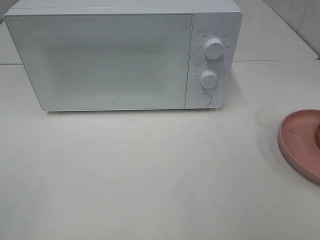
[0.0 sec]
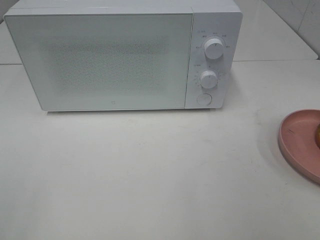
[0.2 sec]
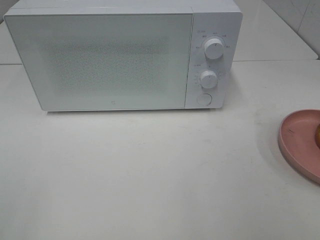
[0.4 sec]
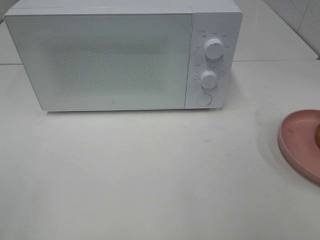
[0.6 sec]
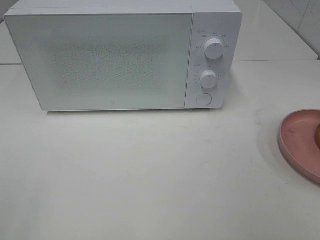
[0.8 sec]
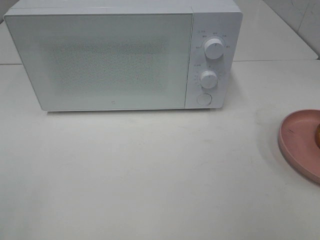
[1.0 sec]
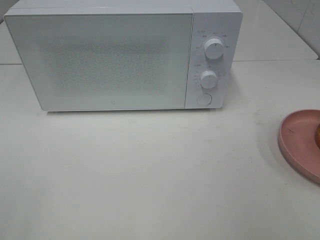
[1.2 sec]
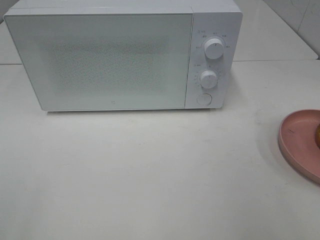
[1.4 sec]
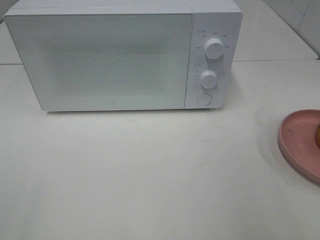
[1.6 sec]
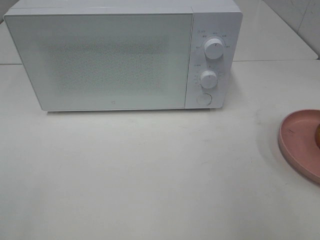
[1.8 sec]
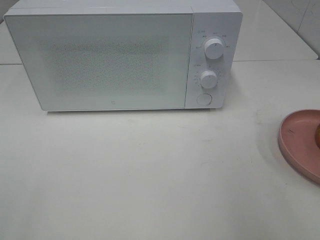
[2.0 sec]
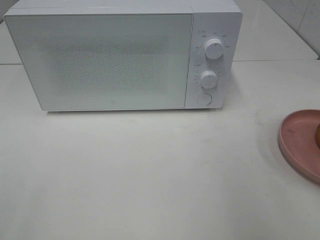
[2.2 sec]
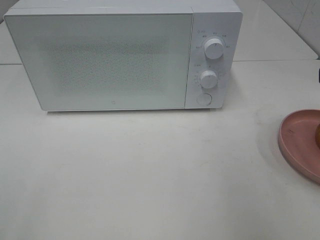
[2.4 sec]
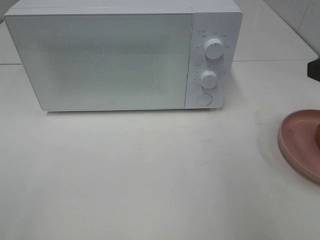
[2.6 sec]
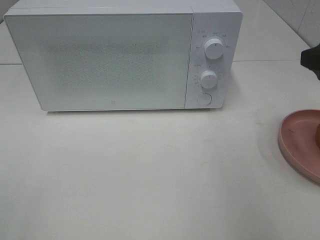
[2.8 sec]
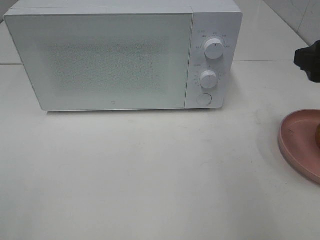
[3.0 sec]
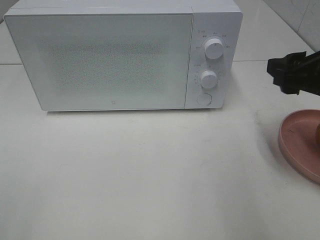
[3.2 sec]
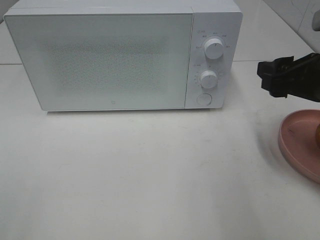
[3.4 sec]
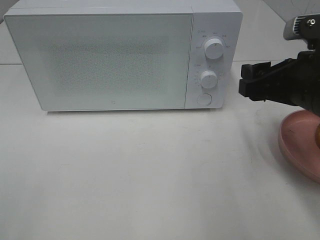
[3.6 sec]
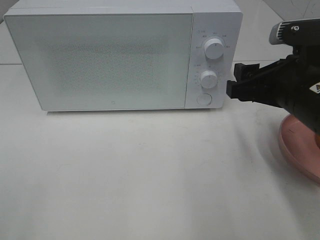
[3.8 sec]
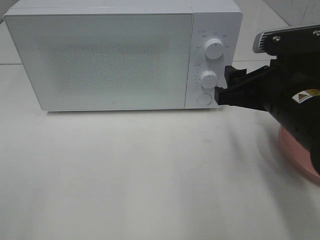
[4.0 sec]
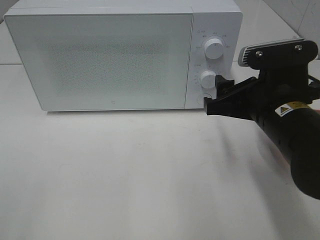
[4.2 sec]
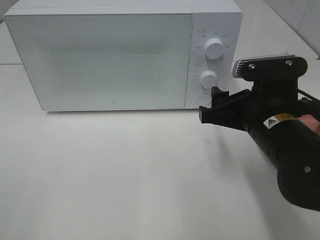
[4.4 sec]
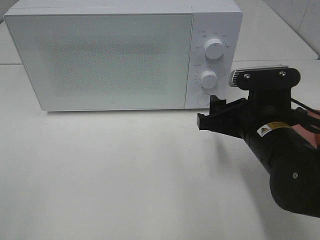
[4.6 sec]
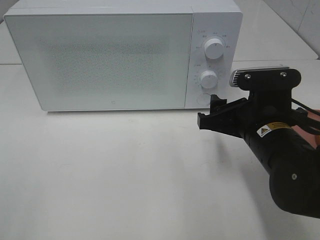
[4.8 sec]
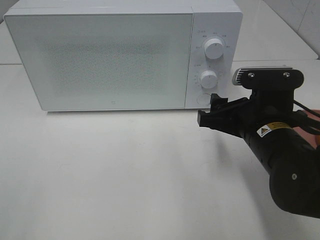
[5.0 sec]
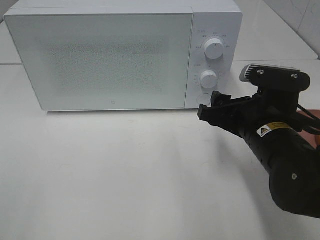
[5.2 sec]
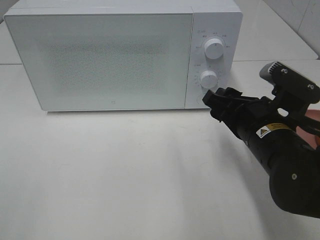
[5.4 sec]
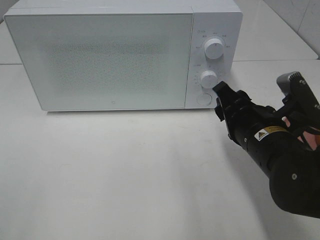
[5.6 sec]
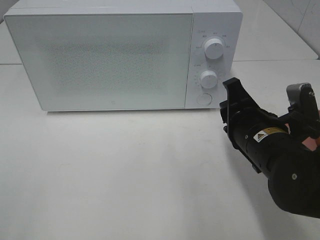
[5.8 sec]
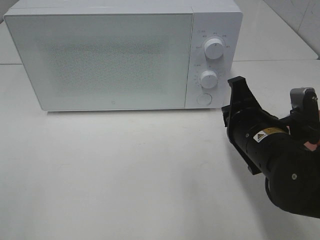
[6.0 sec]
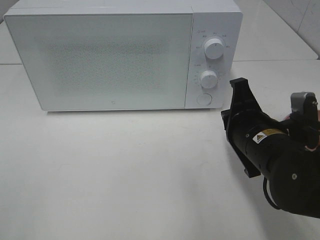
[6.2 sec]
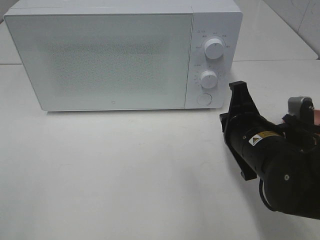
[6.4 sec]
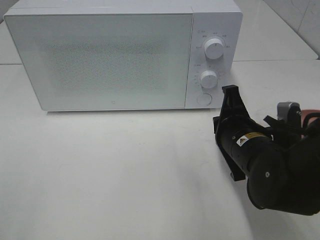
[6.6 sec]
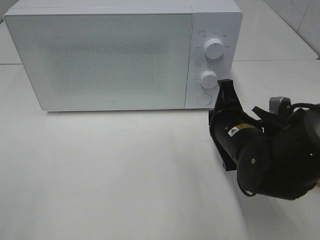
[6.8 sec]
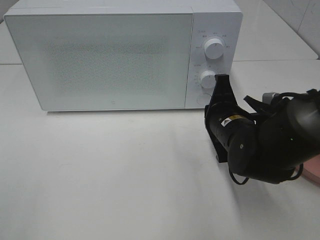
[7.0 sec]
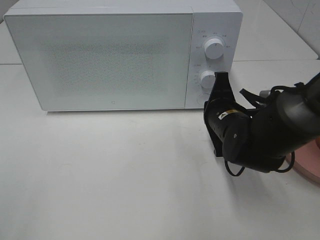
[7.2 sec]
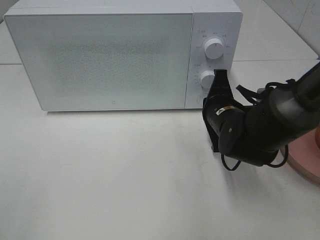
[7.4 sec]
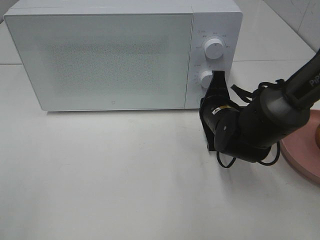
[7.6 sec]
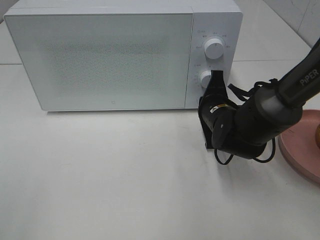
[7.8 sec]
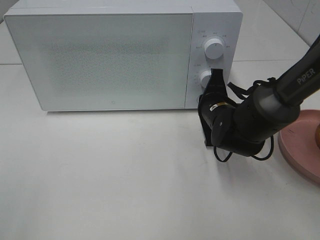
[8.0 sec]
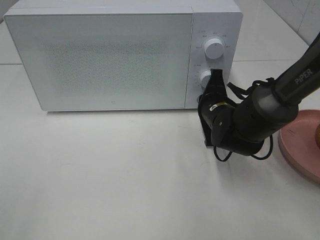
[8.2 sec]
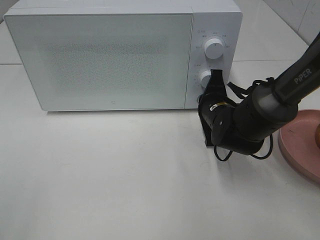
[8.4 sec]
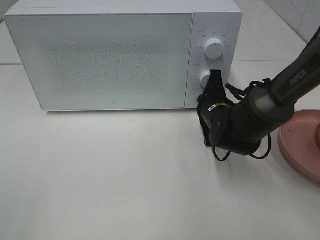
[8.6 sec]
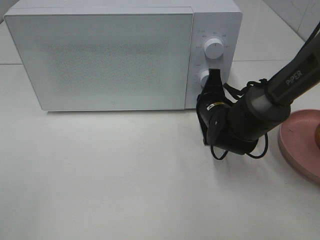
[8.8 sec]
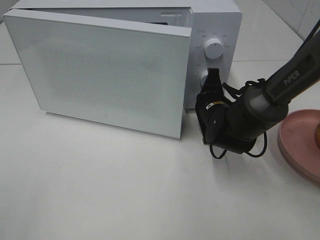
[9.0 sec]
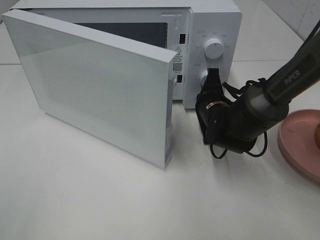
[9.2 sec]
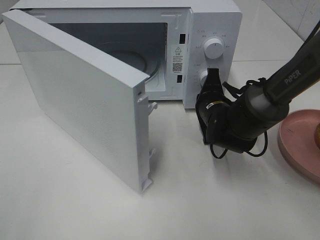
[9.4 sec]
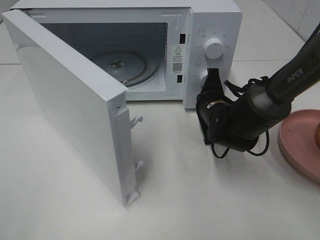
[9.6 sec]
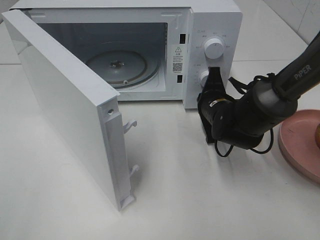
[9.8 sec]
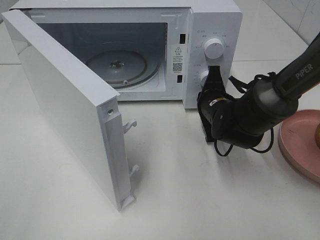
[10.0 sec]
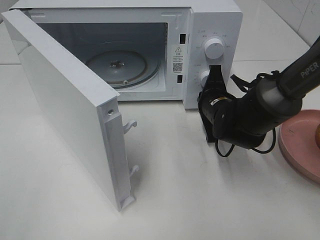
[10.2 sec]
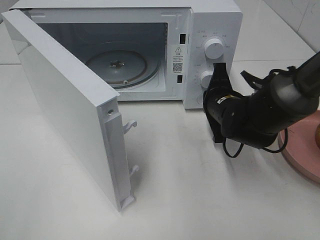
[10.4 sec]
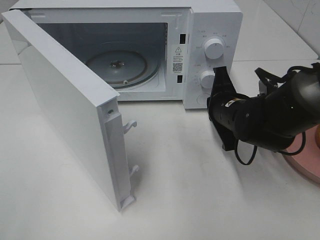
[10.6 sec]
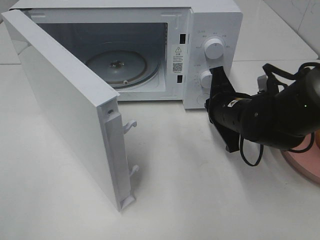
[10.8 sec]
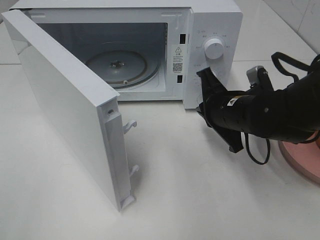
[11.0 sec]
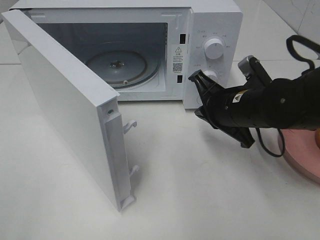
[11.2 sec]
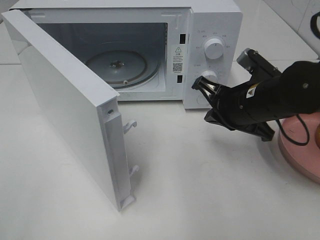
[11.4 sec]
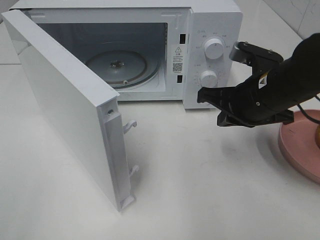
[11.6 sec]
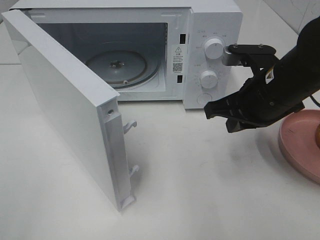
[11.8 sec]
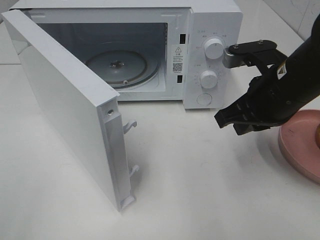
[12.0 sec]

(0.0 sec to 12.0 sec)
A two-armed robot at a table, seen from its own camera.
Task of the whole recording: Heat the burger.
Step, 0.0 sec - 10.8 sec: Right hand: press the switch.
1.6 sec - 3.0 sec: The right gripper shifts about 15 cm forward.
3.0 sec - 4.4 sec: The right gripper goes approximately 15 cm to the left and downward.
4.4 sec - 6.0 sec: The right gripper closes its fingers.
6.0 sec - 7.6 sec: The right gripper heads forward and downward, covering roughly 10 cm.
7.6 sec - 9.0 sec: There are only small adjustments of the grippers.
10.4 sec - 12.0 sec: The right gripper moves upward and backward, some 15 cm.

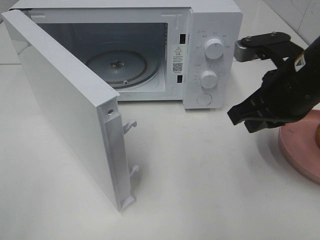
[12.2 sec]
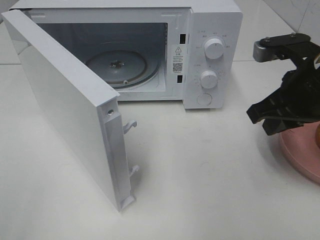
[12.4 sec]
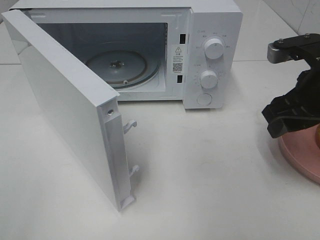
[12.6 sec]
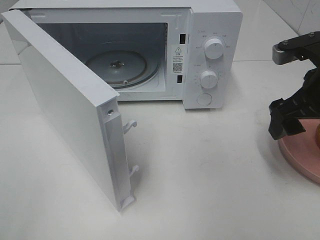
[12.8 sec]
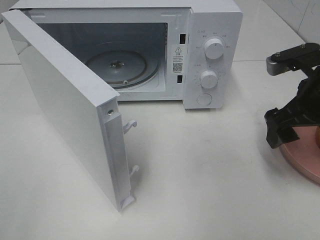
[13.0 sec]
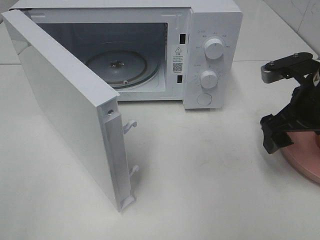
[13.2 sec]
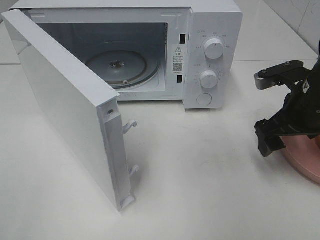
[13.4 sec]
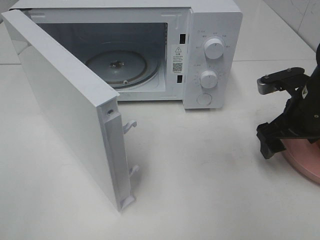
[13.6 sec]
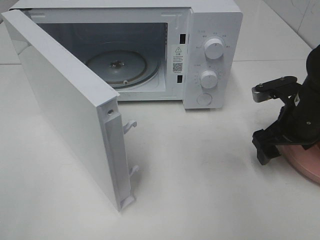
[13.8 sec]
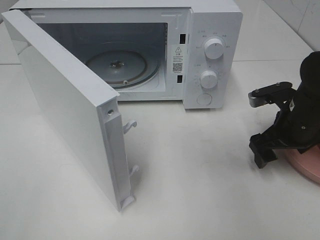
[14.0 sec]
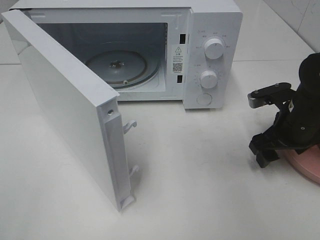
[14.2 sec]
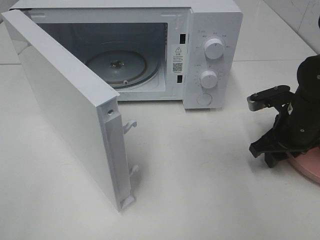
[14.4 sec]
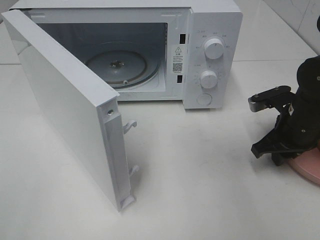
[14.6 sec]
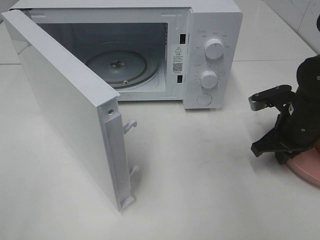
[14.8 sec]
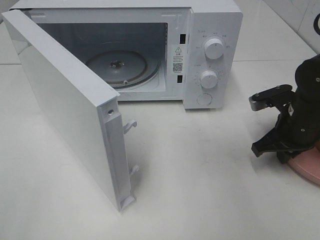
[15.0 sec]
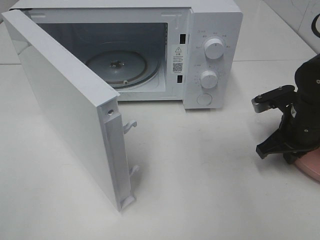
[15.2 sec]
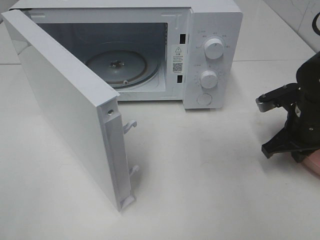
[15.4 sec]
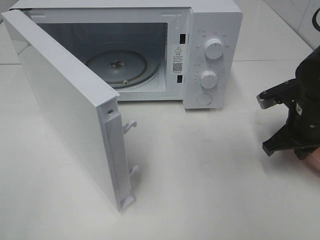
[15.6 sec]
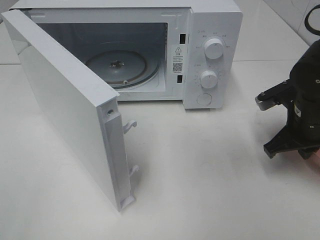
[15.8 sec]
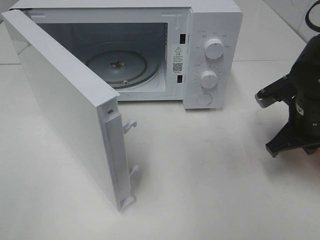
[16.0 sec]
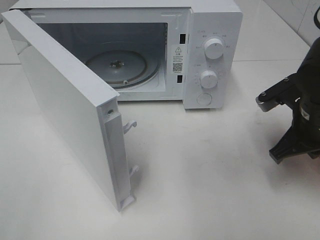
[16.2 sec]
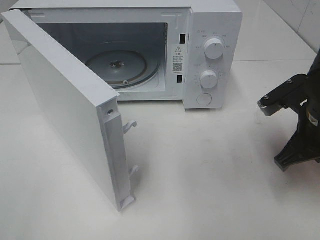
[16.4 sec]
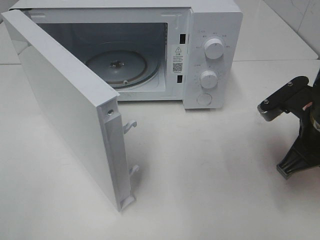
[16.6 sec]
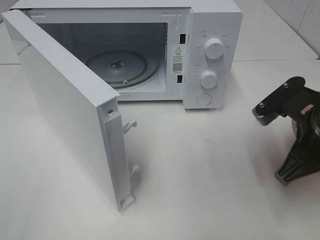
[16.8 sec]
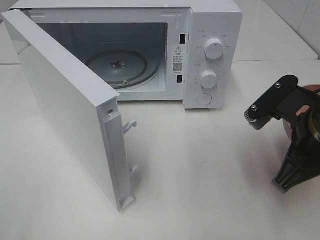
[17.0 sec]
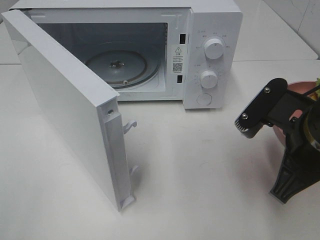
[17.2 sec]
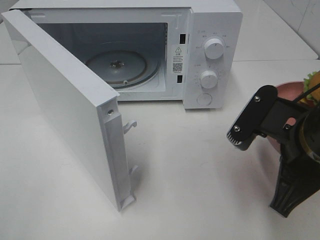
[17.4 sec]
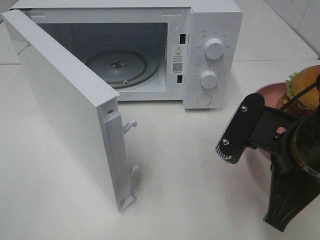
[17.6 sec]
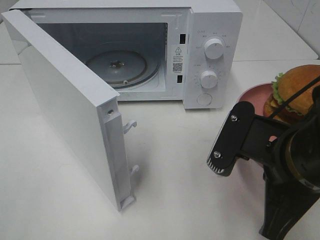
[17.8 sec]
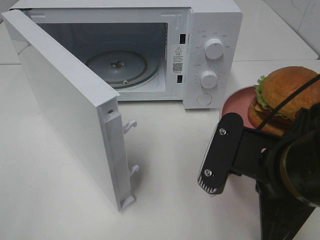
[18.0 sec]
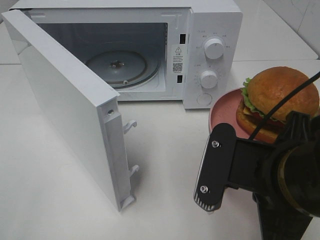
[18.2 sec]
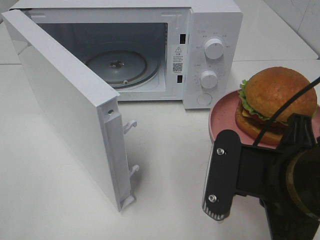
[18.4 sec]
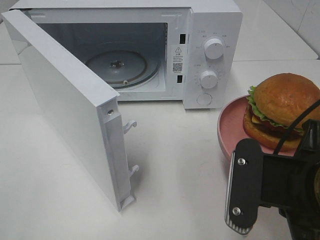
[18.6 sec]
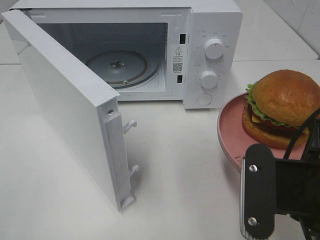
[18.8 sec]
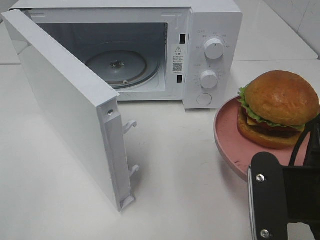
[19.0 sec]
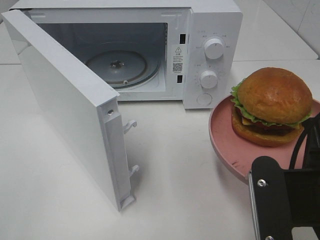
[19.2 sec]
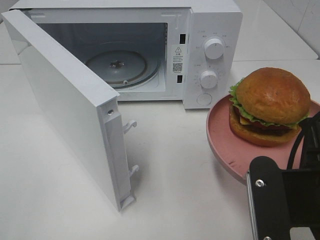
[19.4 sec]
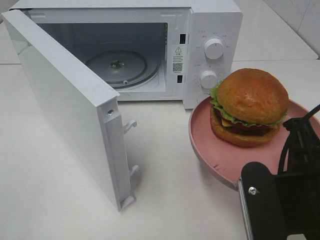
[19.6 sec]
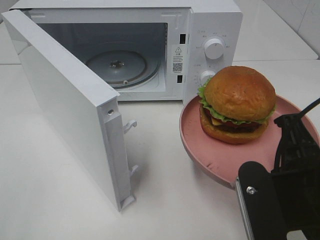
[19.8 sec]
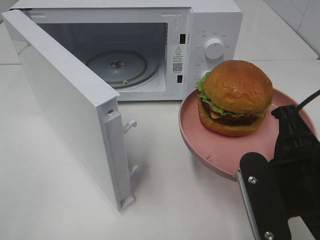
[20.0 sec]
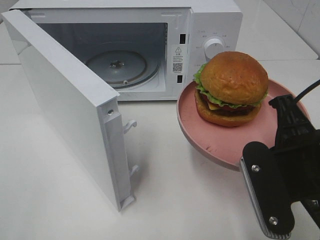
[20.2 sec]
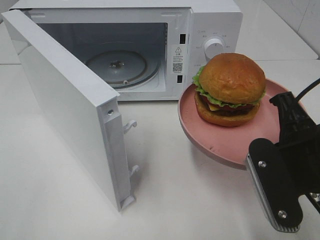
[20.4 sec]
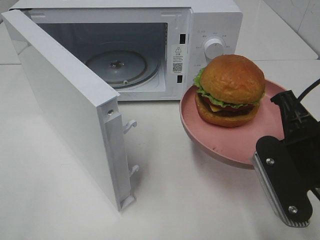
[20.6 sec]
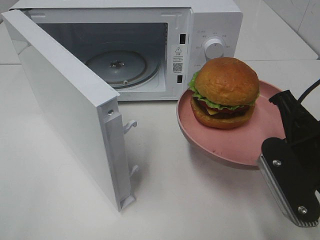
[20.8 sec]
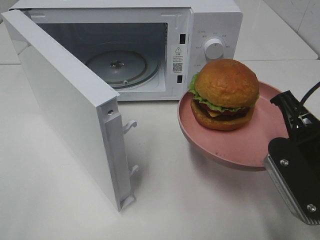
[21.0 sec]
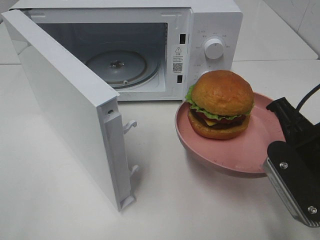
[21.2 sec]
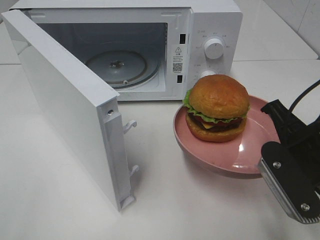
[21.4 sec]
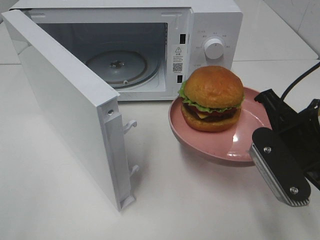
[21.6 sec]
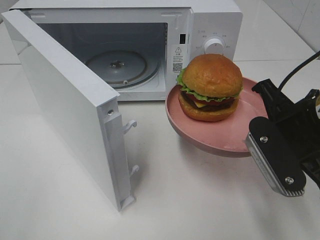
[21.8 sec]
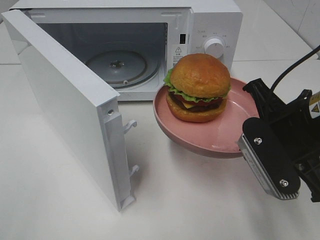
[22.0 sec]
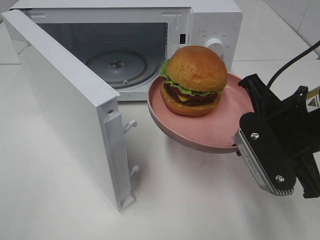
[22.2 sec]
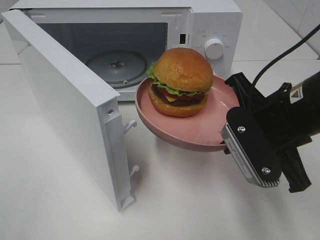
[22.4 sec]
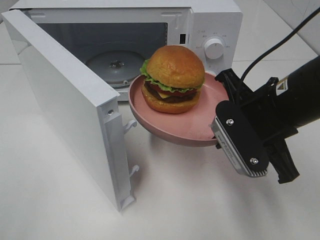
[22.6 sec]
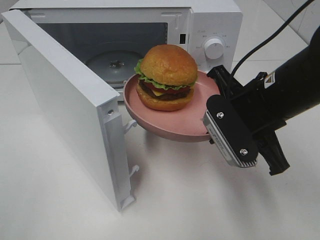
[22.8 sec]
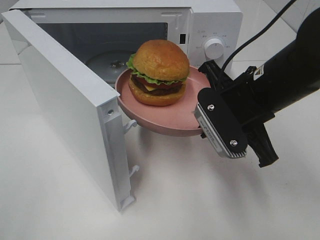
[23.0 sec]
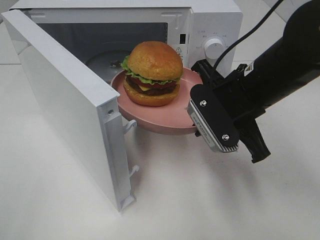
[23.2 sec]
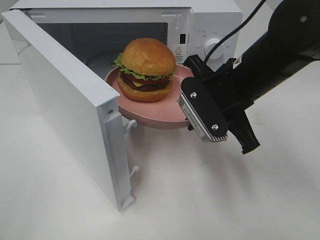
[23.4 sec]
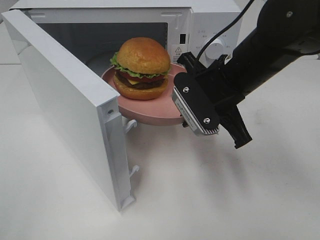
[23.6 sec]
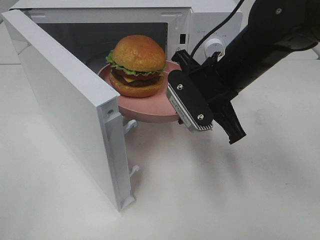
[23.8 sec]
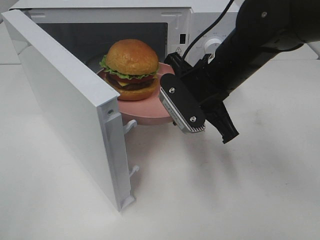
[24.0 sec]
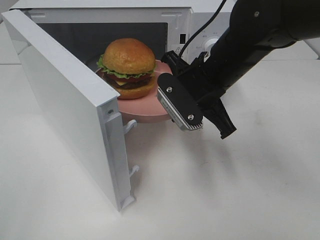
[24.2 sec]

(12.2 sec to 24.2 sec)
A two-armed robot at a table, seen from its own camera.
Task of the whole recording: Heat the burger.
Step, 12.2 sec - 15.4 sec: Right hand: grab the plate with the hamburger.
12.2 sec - 13.8 sec: The right gripper is displaced downward and to the right by some 10 cm, and opens up.
13.8 sec - 15.2 sec: The right gripper closes up.
15.2 sec - 16.6 sec: The right gripper heads backward and upward, covering roughly 10 cm.
16.6 sec - 18.2 sec: The right gripper travels backward and to the left by approximately 15 cm.
19.8 sec - 21.2 sec: The right gripper shifts some 5 cm forward.
21.2 sec - 22.6 sec: The right gripper is displaced forward by about 5 cm.
22.6 sec - 24.2 sec: The right gripper heads forward and to the left, covering some 10 cm.
